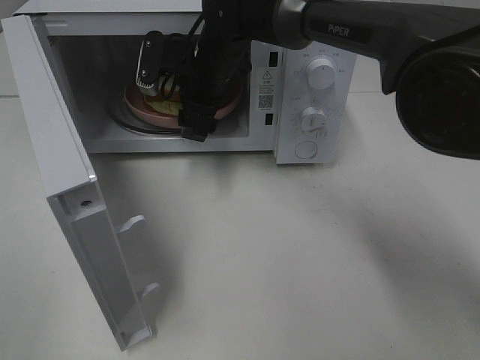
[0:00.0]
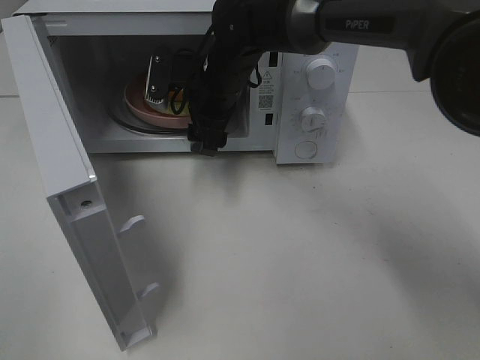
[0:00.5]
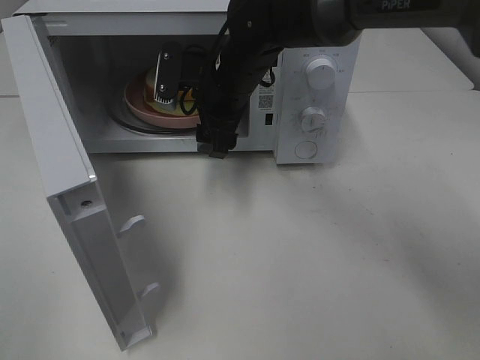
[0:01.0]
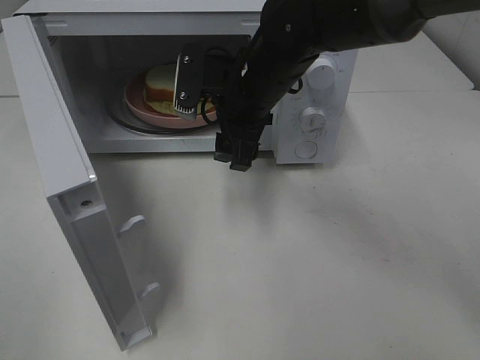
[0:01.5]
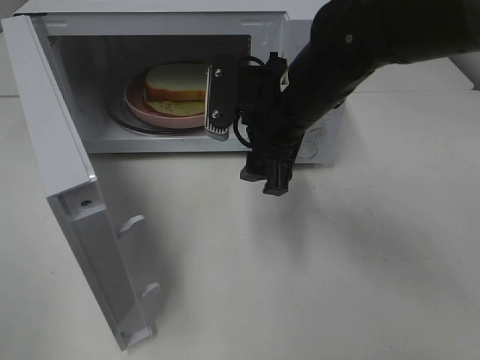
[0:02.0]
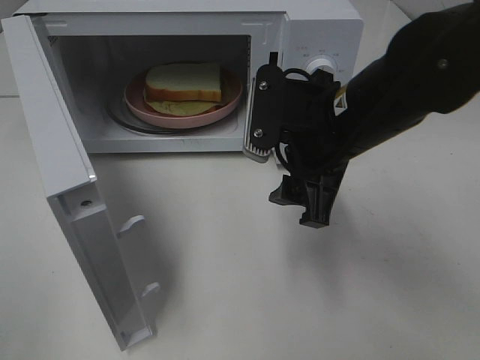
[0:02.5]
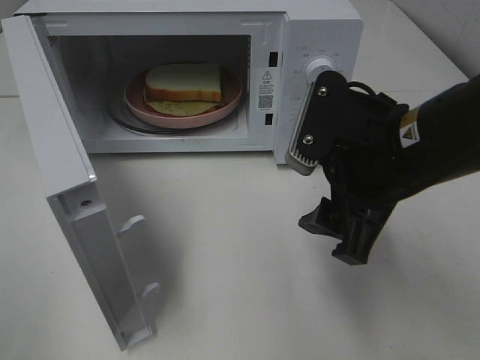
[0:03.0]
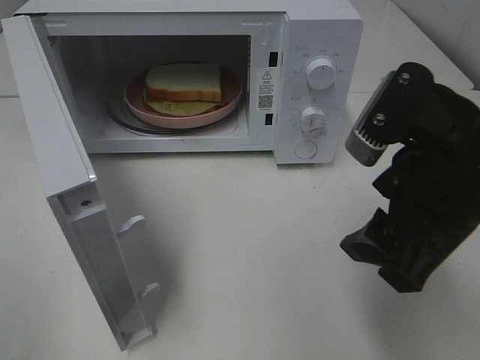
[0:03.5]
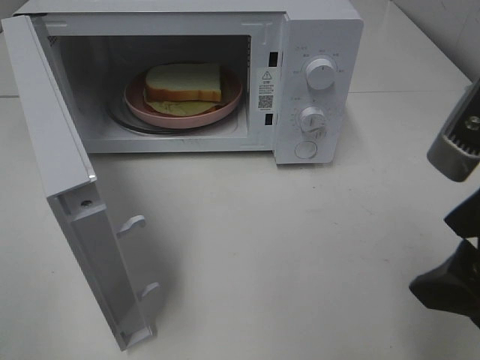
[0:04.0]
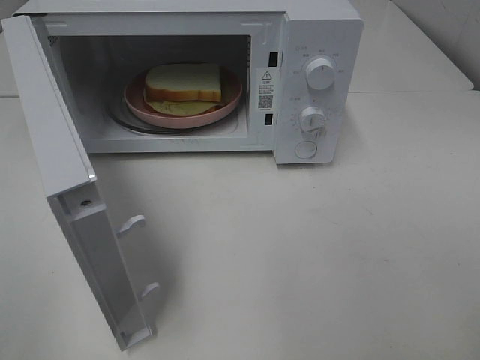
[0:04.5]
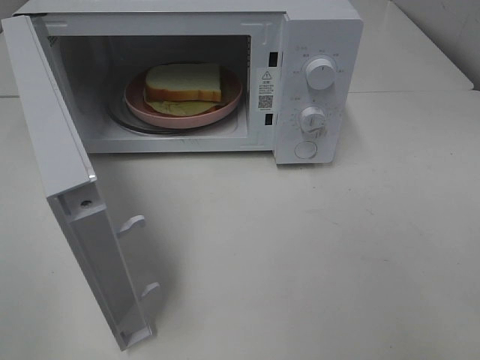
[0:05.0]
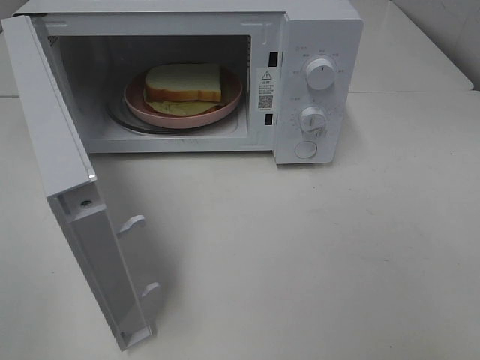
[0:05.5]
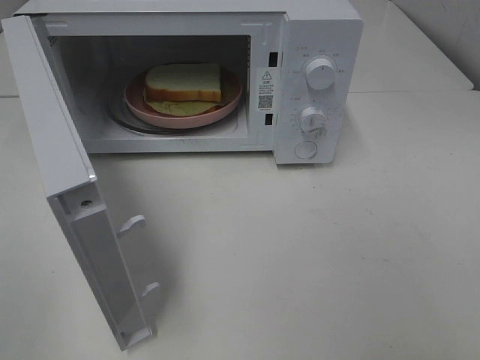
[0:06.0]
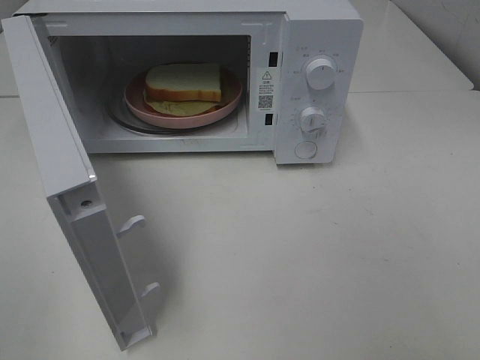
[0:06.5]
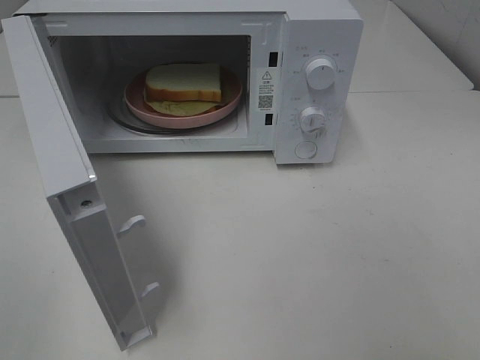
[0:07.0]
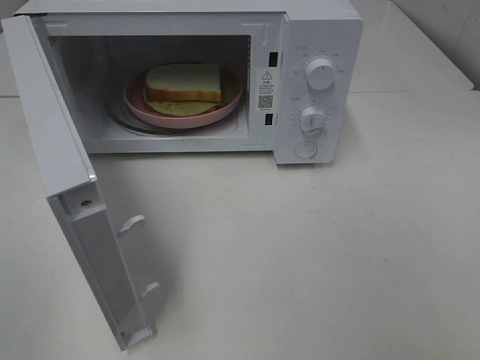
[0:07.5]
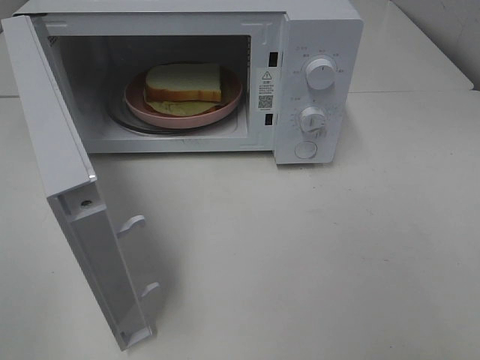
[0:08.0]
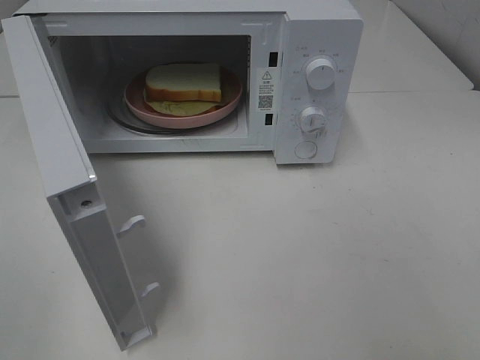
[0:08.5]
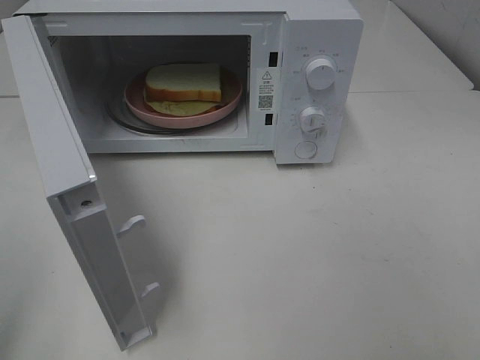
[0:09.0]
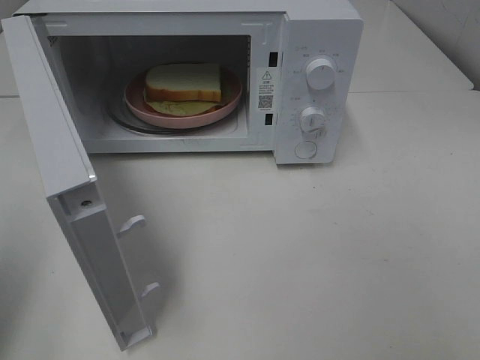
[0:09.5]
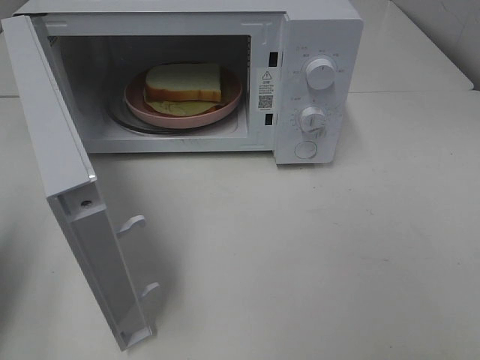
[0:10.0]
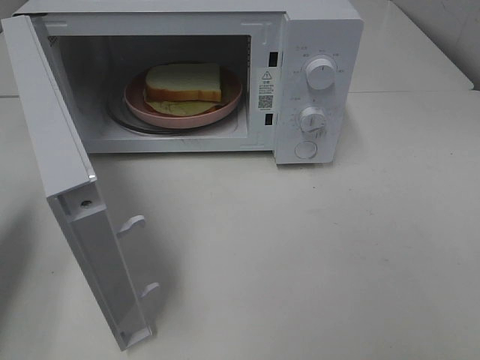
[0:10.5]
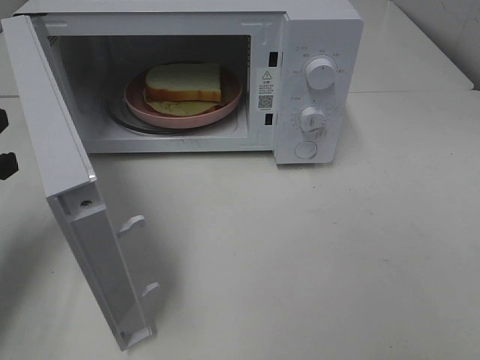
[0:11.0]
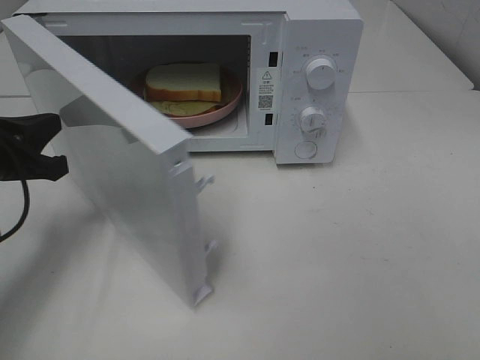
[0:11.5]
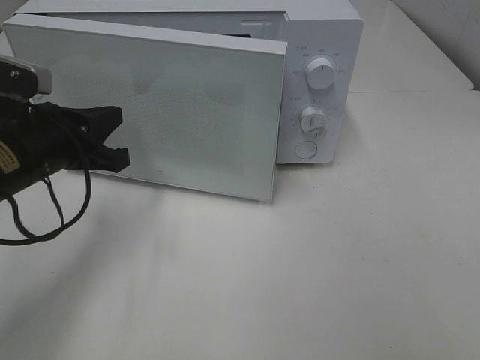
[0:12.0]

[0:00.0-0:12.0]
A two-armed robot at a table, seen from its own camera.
Task of the whole recording: Heat Sandwich.
0:00.0 to 0:02.0: The right gripper is displaced backward and to the right by about 15 cm.
0:02.0 to 0:04.0: The right gripper heads backward and to the right, covering about 25 cm.
0:04.0 to 0:06.0: The right gripper heads backward and to the right, covering some 15 cm.
0:06.0 to 0:08.0: Both grippers stay about where they are.
0:08.0 to 0:10.0: The left gripper goes about 15 cm forward, and closes up.
0:10.0 to 0:12.0: The left gripper travels to the right, forward and downward by some 20 cm.

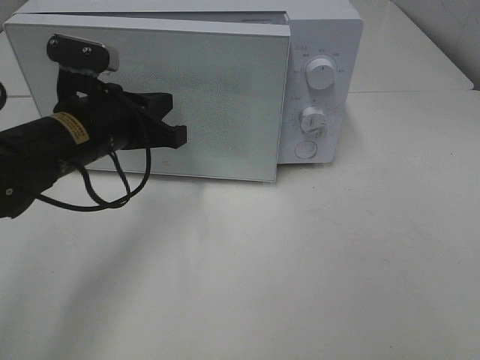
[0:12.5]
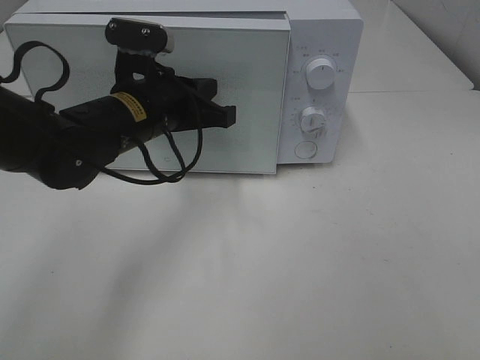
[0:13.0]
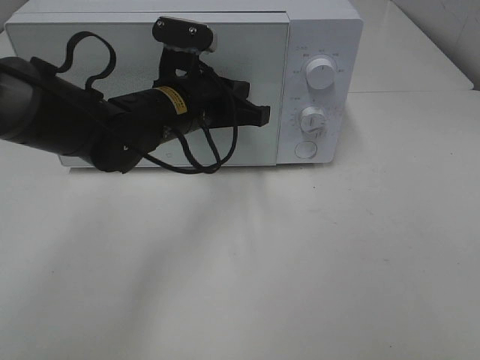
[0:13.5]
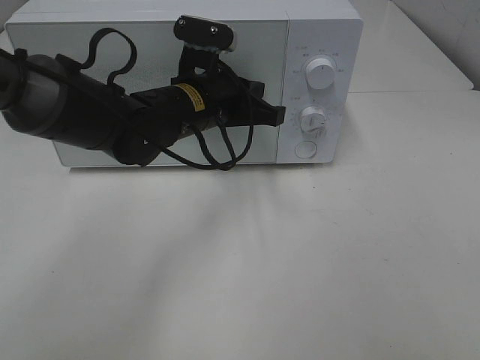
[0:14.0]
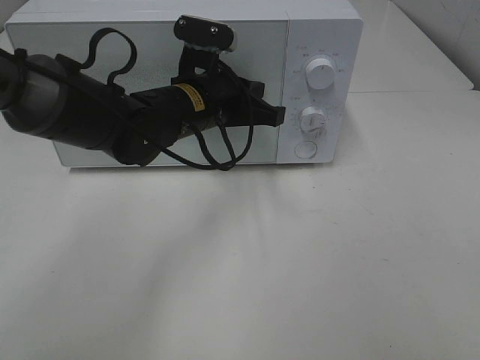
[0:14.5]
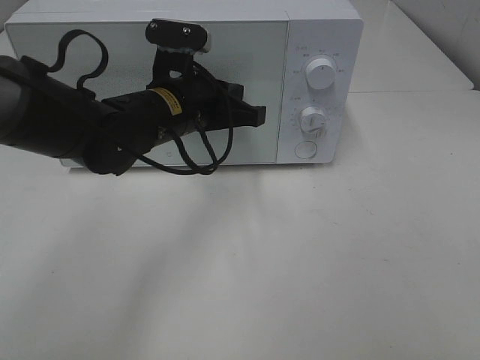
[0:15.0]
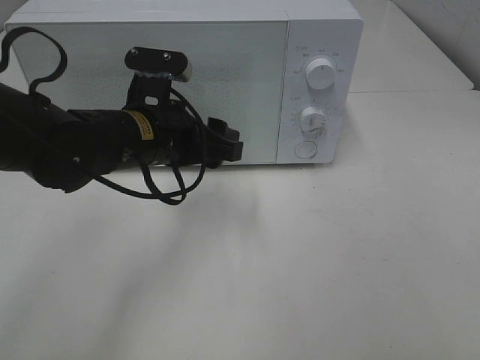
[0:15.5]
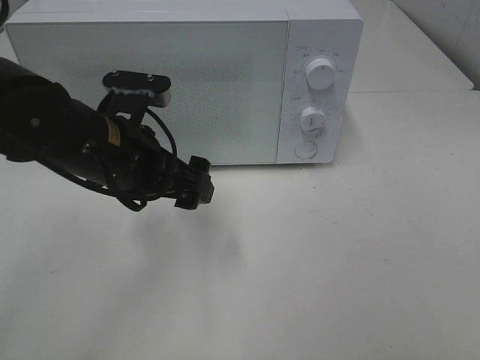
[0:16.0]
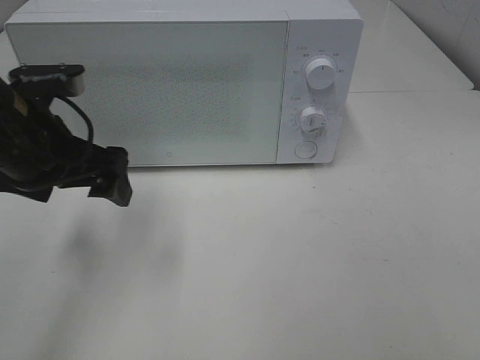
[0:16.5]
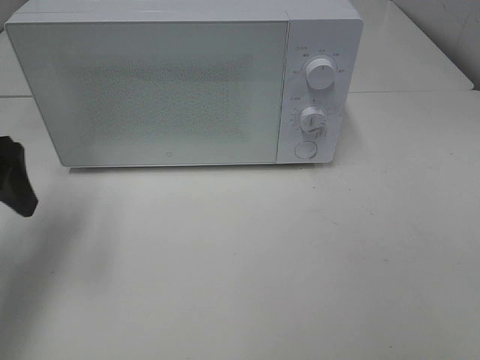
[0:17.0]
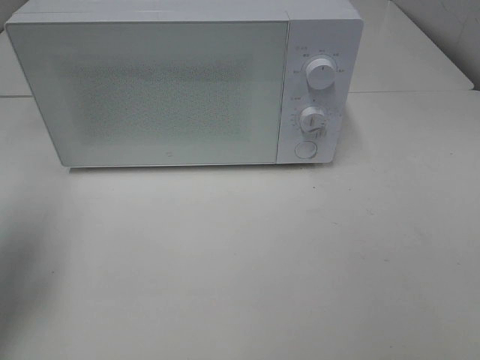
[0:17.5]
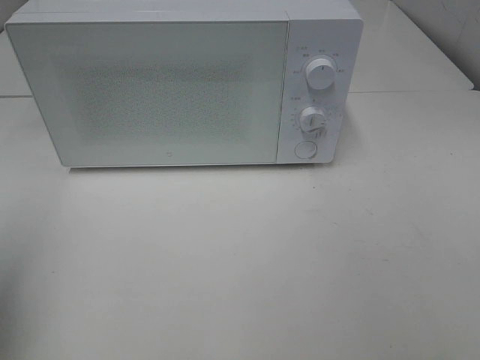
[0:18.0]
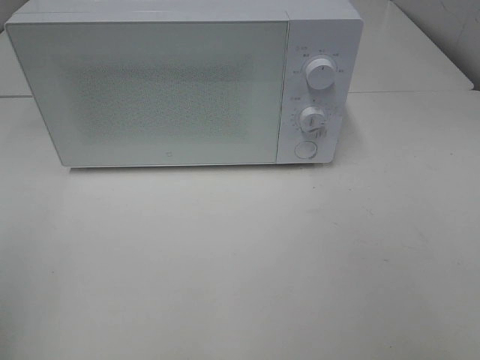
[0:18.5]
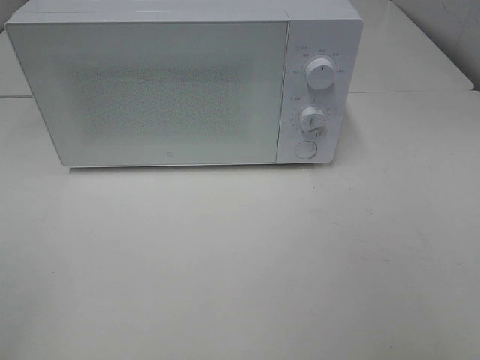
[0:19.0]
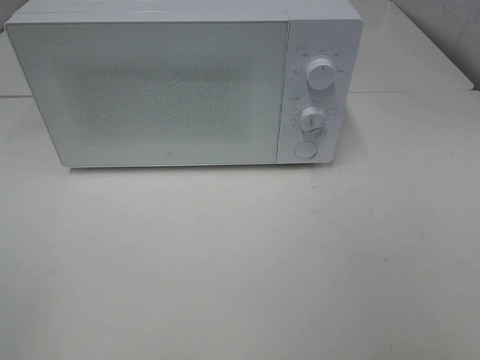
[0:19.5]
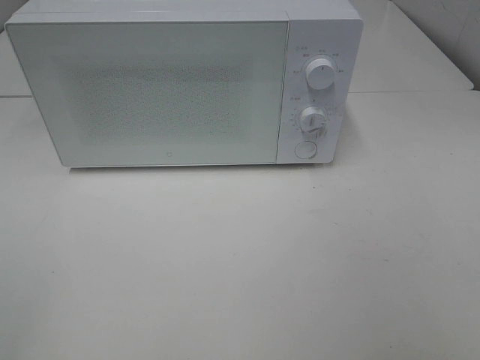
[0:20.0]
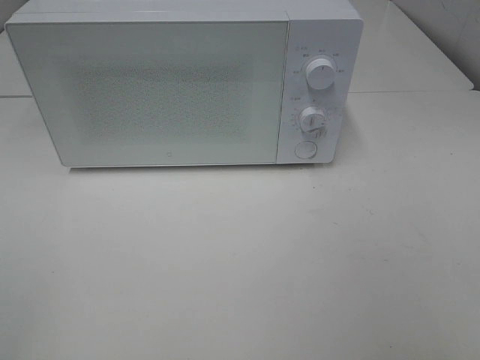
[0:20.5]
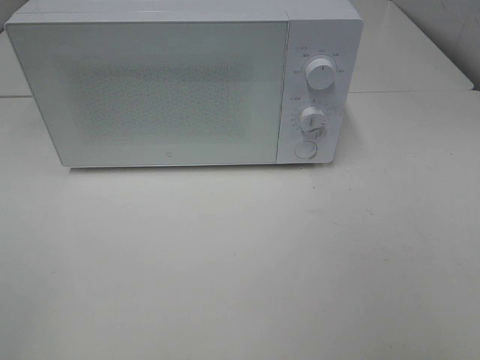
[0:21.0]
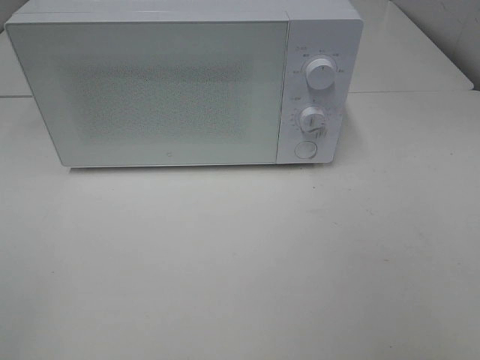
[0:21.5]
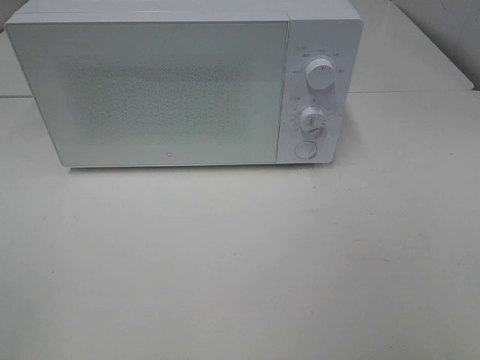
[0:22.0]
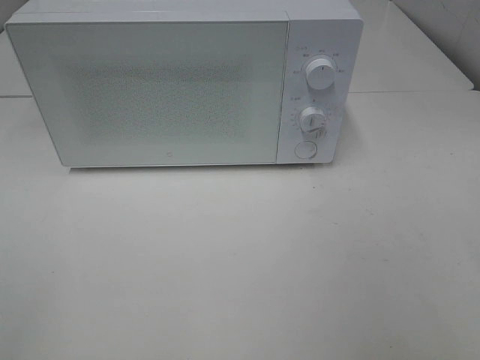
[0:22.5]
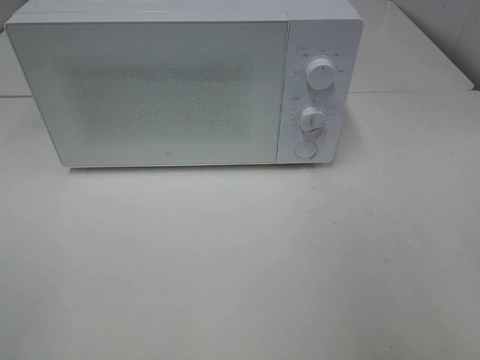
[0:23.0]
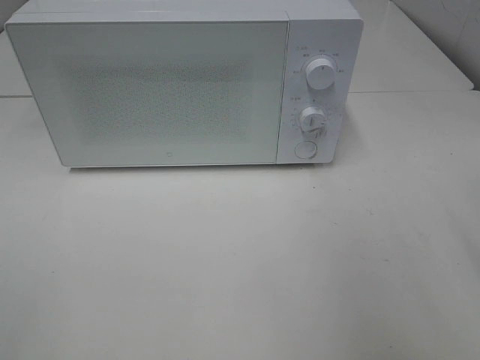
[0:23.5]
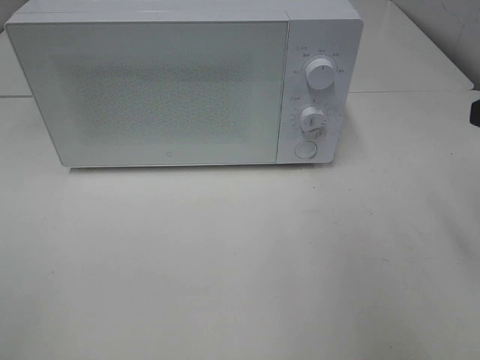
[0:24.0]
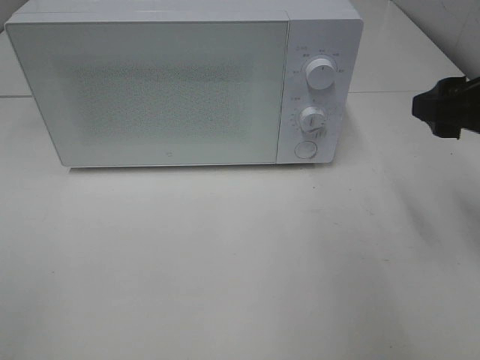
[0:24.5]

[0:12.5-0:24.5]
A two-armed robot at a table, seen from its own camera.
Task of the whole recording: Heat Sandwich.
Step, 0:12.5 to 0:15.0: Left hand: close the microwave door.
0:12.5 to 0:14.5: The left gripper moves to the right and forward, approximately 10 cm.
0:14.5 to 0:16.5: The left gripper travels to the left and backward by about 15 cm, and opens its fingers.
0:16.5 to 0:18.5: The left gripper is displaced backward and to the left by about 25 cm.
0:22.5 to 0:24.5: The right gripper heads forward, covering roughly 20 cm.

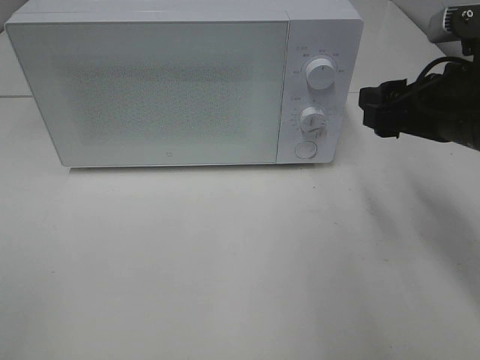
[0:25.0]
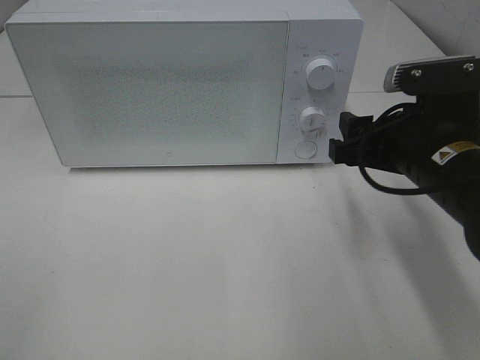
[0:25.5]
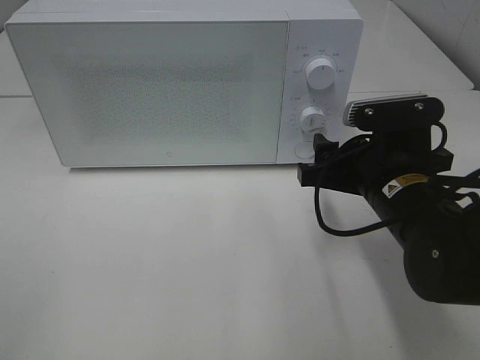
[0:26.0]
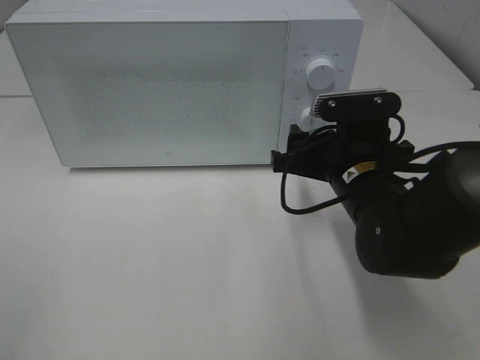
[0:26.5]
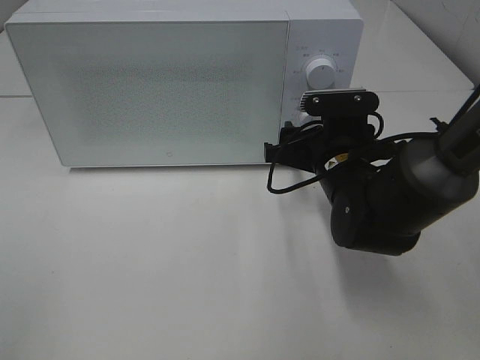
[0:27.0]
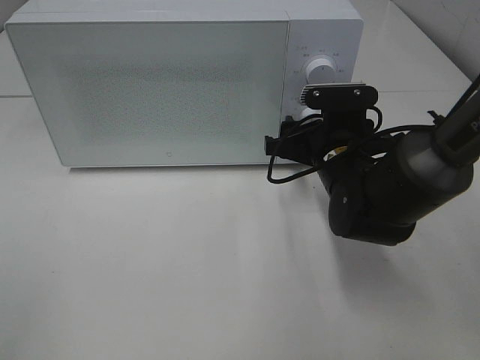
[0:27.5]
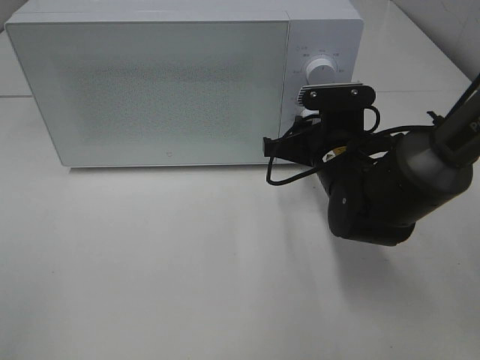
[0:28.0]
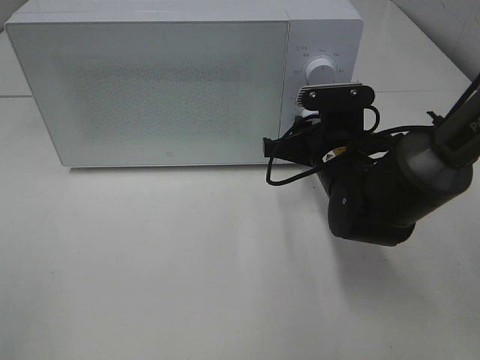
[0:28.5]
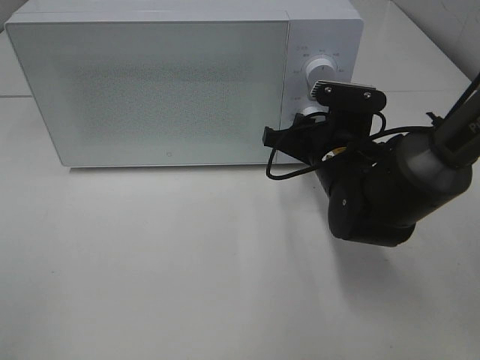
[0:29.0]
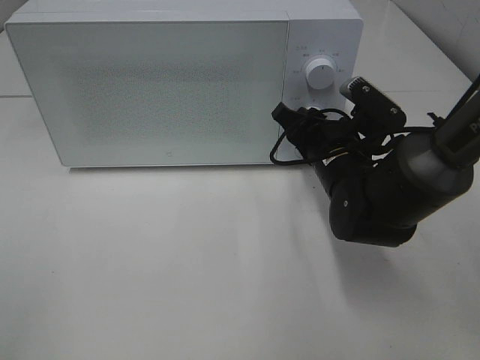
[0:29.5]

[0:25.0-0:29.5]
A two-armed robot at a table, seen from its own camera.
Task of the whole recording: Heat Sandwich.
0:25.0 to 0:27.0: The right gripper travels downward, to the left and forward by some 15 cm.
0:27.0 to 0:29.5: The right gripper closes.
